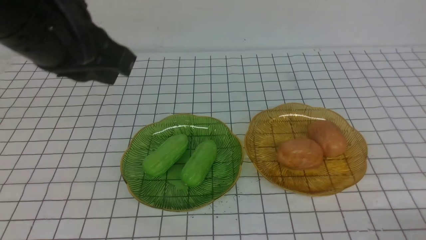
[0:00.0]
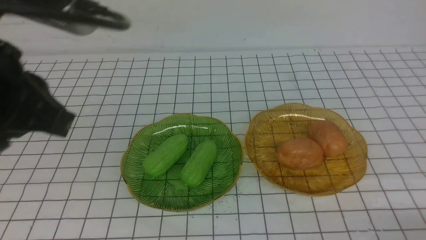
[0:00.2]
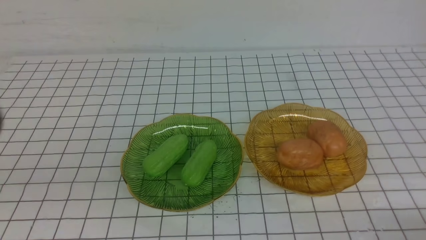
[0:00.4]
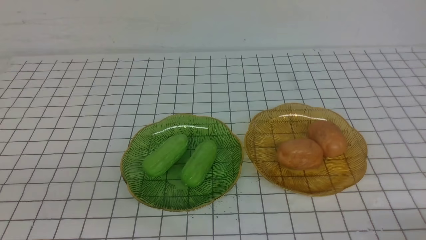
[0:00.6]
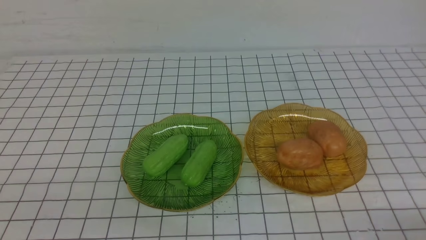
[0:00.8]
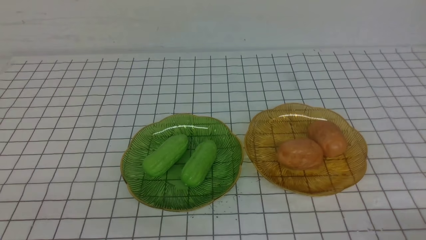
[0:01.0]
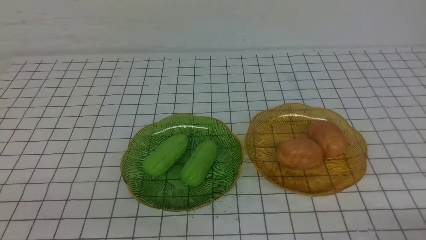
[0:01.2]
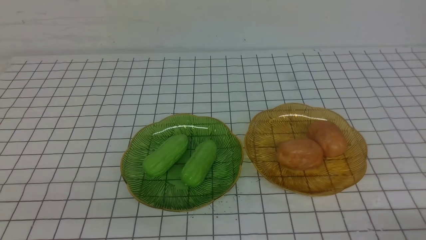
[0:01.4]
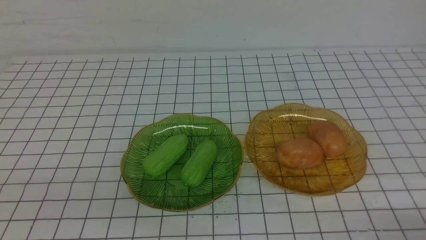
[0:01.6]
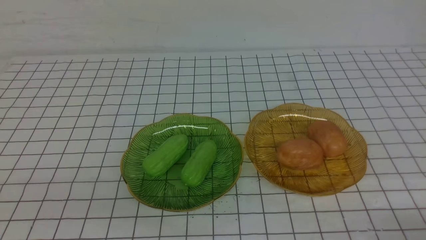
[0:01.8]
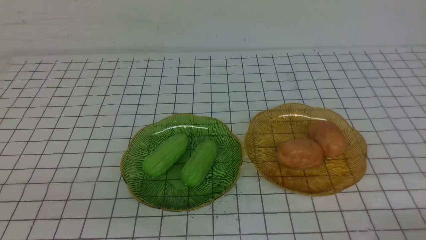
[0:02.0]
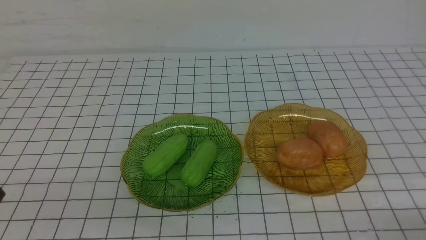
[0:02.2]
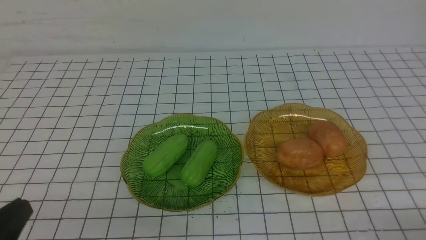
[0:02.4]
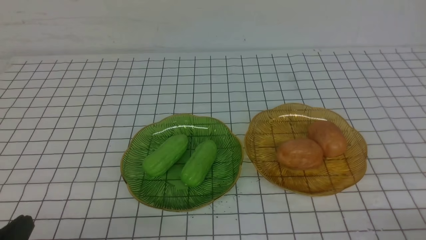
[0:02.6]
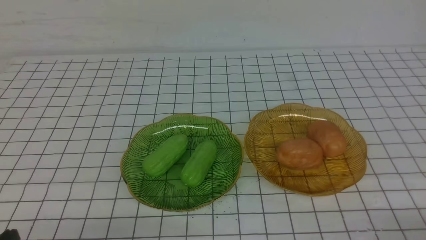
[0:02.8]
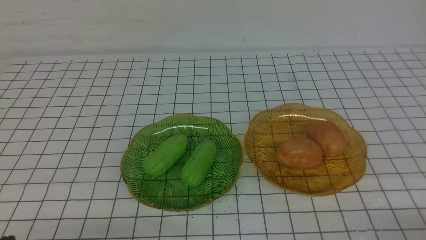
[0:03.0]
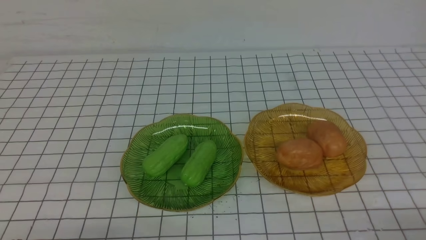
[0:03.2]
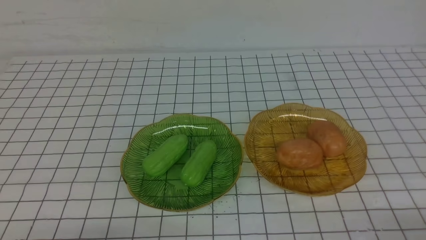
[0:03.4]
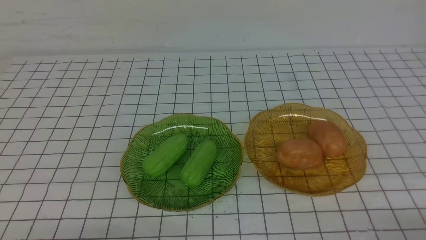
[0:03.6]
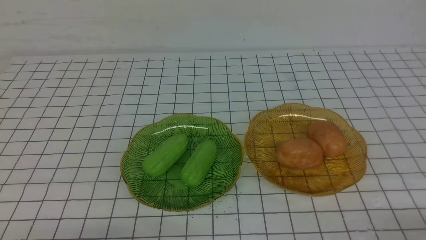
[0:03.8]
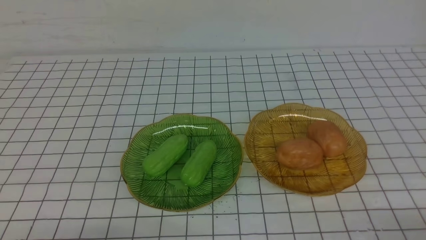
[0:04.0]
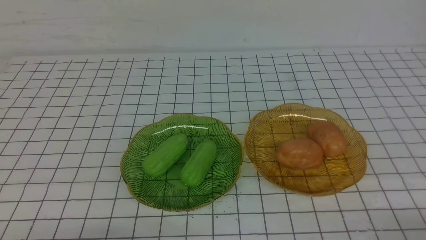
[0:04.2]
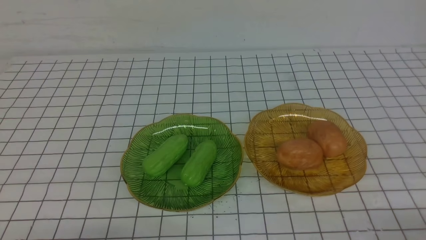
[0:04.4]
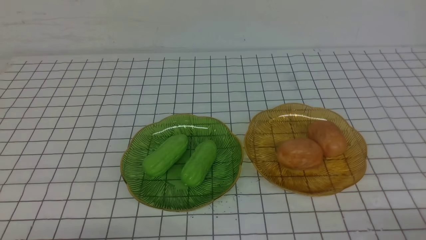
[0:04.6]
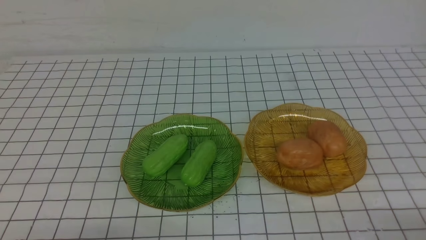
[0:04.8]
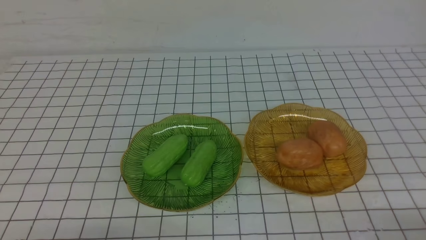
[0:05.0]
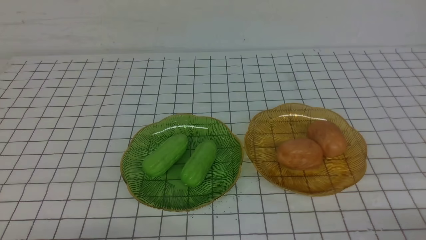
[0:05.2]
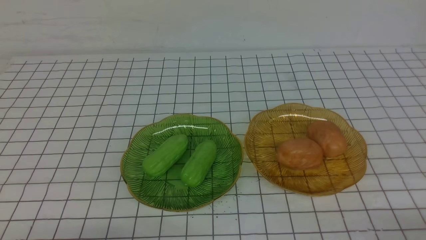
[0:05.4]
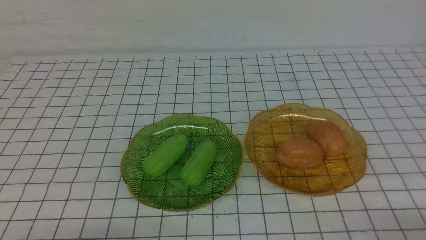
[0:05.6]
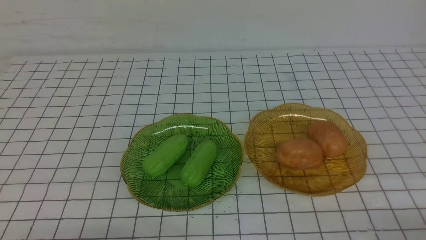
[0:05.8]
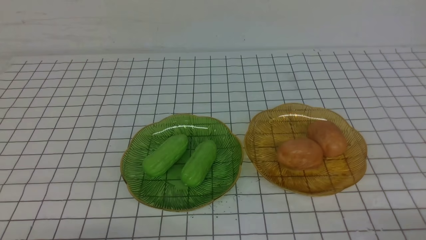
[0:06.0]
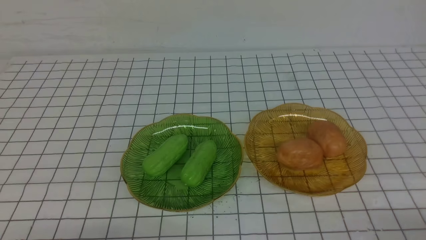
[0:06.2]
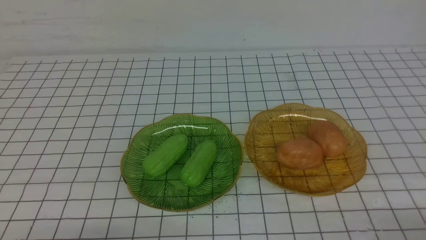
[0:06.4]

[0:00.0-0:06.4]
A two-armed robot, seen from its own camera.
0:00.0 to 0:01.6: The left gripper heads backward, downward and to the left, covering some 25 cm.
0:03.2 to 0:06.4: Neither gripper changes place.
